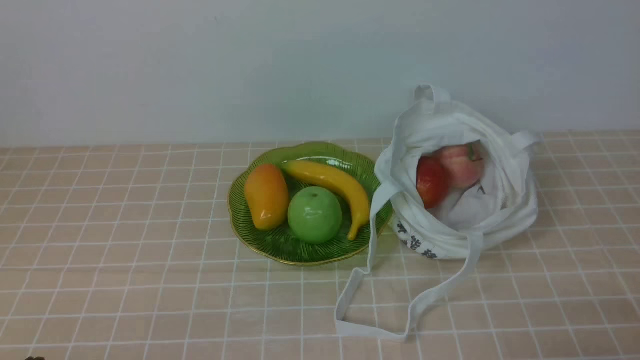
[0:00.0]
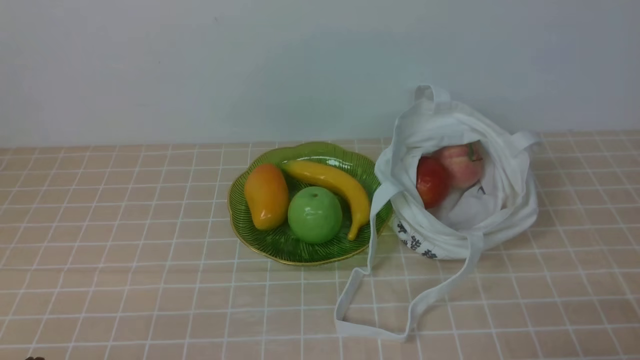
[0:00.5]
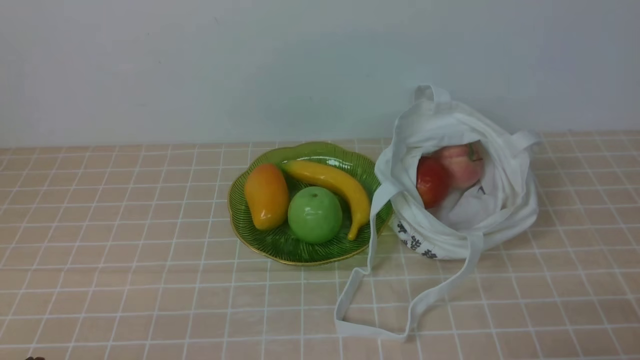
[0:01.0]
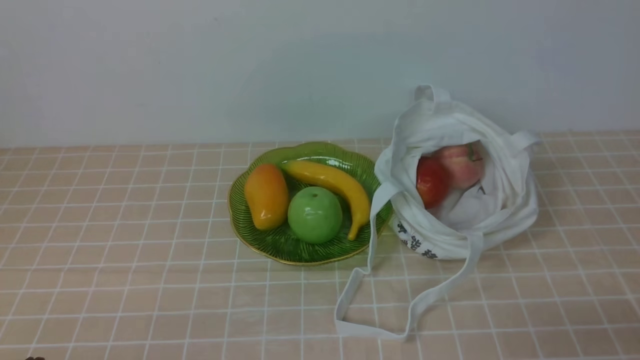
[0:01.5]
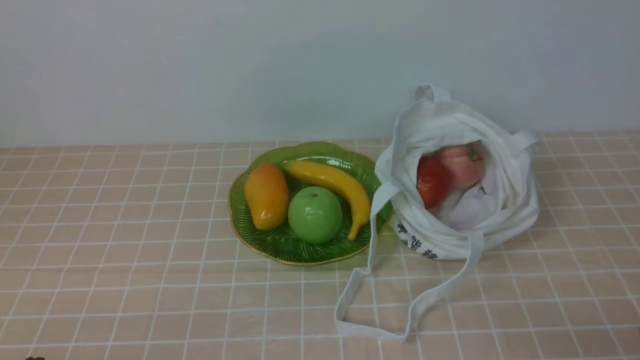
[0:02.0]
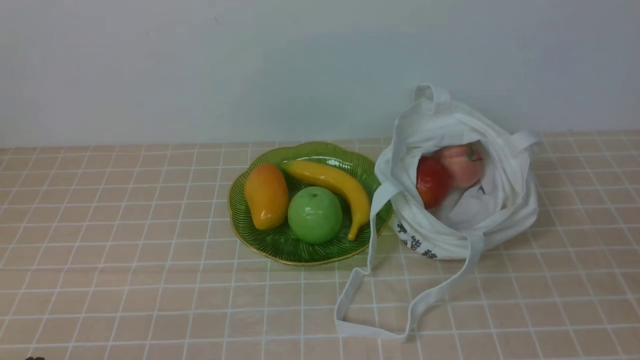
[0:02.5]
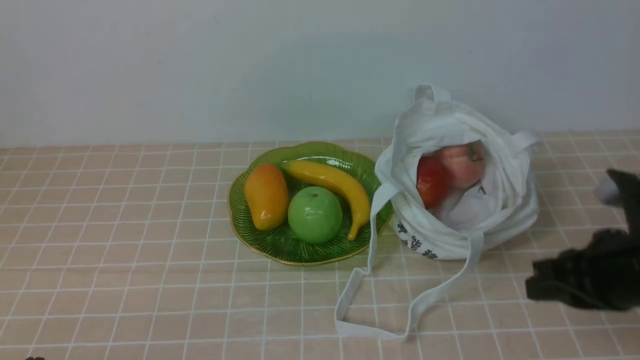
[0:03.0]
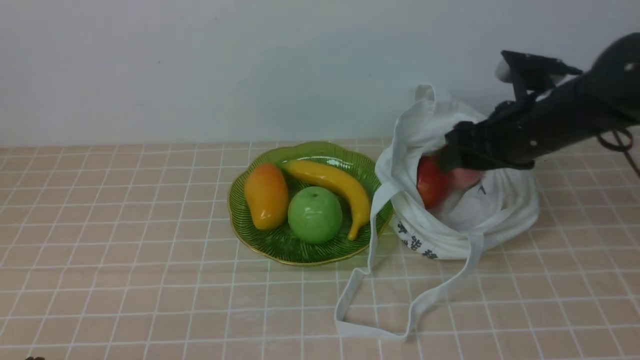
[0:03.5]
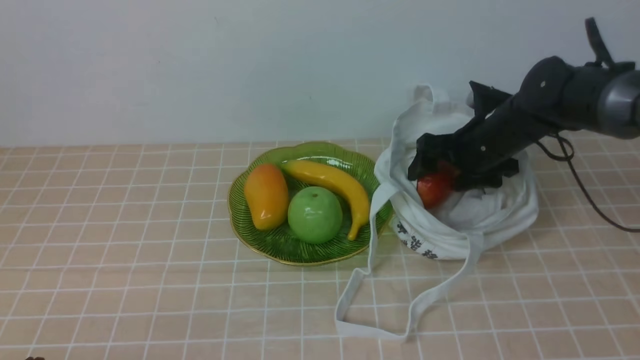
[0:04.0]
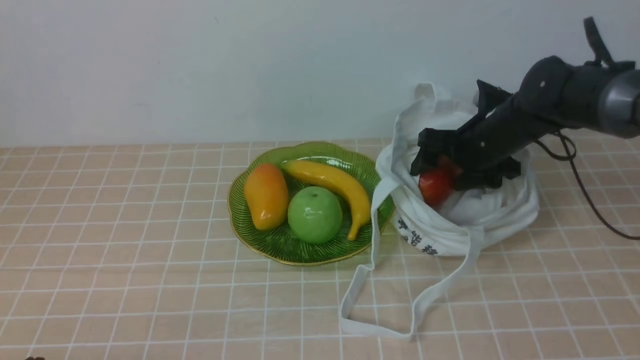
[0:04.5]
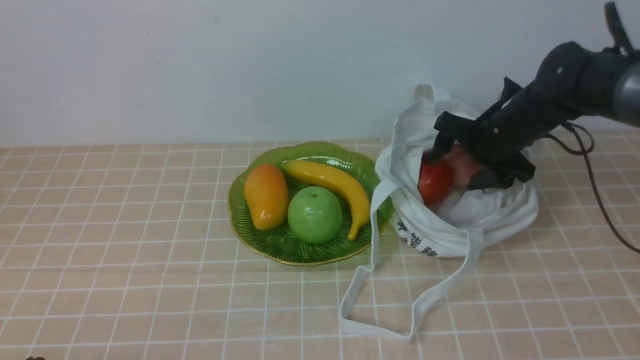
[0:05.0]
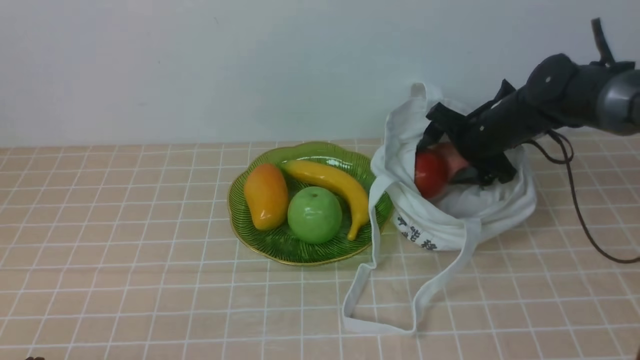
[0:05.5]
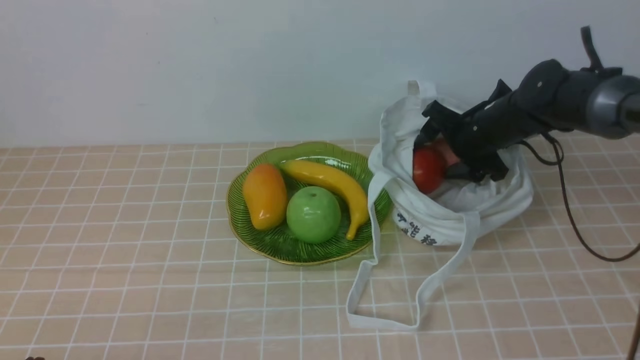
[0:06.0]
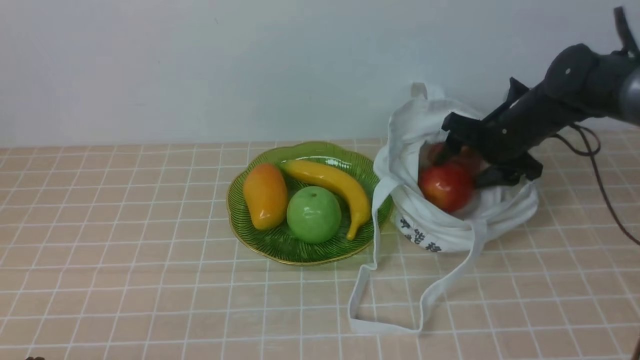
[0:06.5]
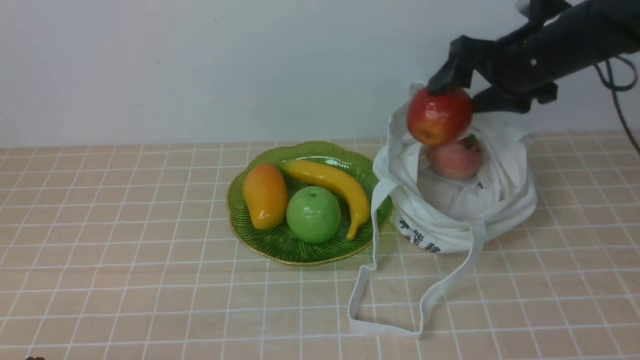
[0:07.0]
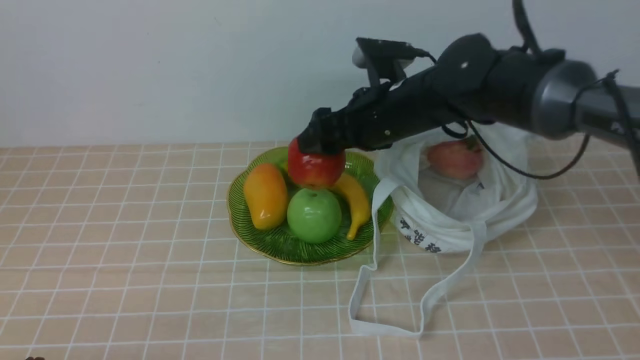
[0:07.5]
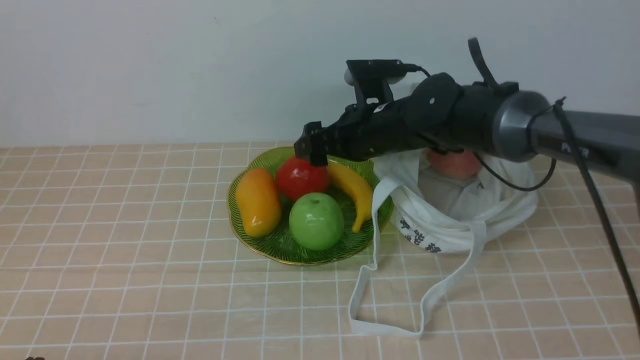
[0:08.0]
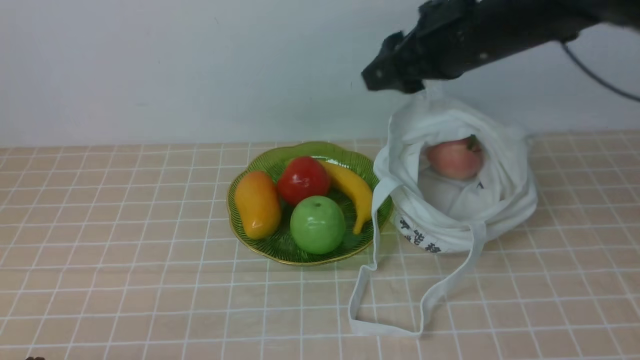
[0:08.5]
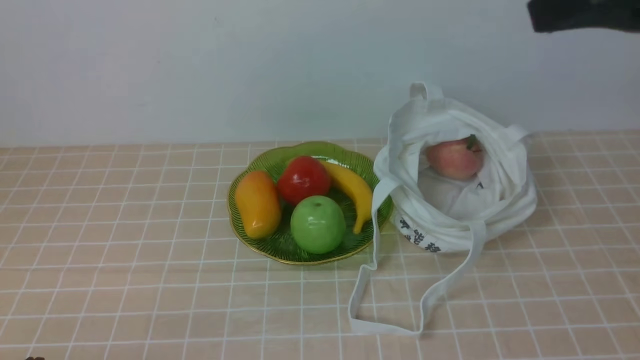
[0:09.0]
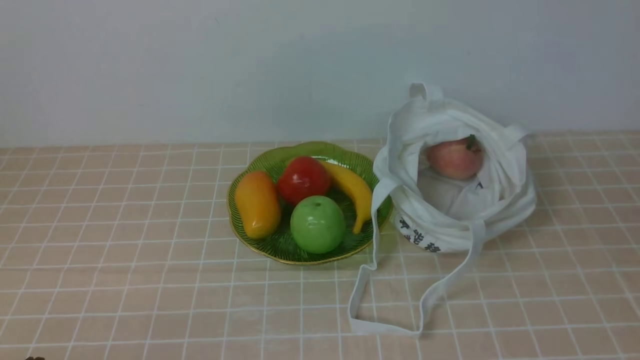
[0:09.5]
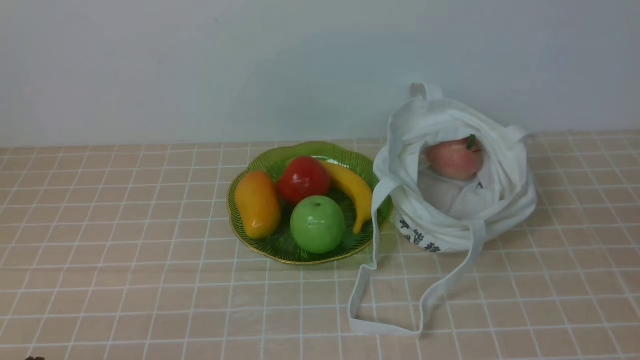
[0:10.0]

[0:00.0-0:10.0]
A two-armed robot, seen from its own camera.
Step, 0:00.0 to 0:06.5: use the right arm to grab an apple from the bag.
Step, 0:07.0 to 0:08.0: use the right arm to put the apple into the empty plate on the left.
0:02.0 to 0:04.0: The right gripper travels forward by roughly 40 cm, and opens.
0:06.0 to 0:08.0: The right gripper travels to the left and upward by some 15 cm.
0:08.0 to 0:10.0: The right gripper goes roughly 40 cm backward and to the right, and closes its fingers.

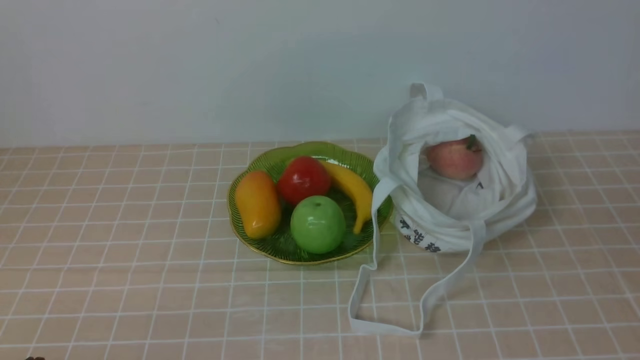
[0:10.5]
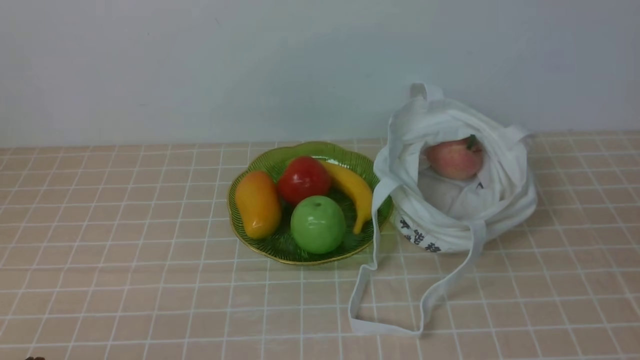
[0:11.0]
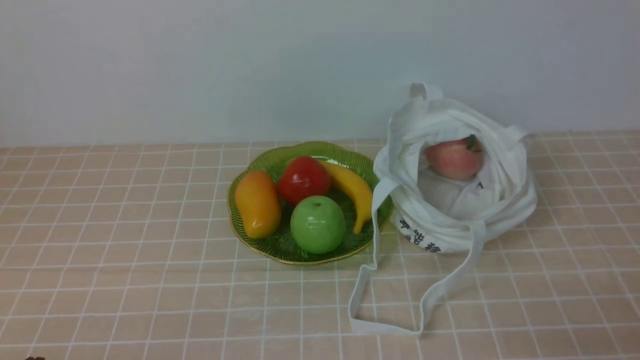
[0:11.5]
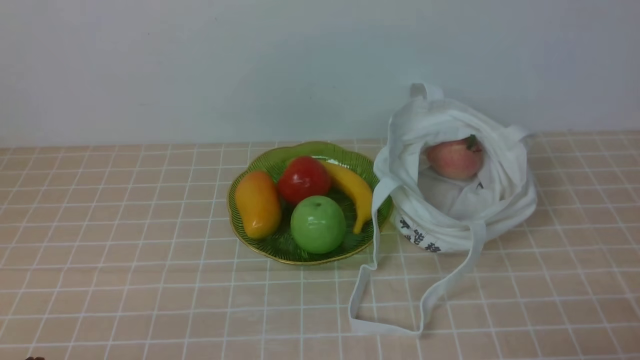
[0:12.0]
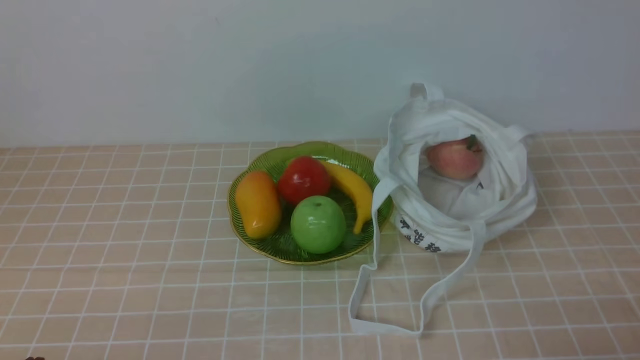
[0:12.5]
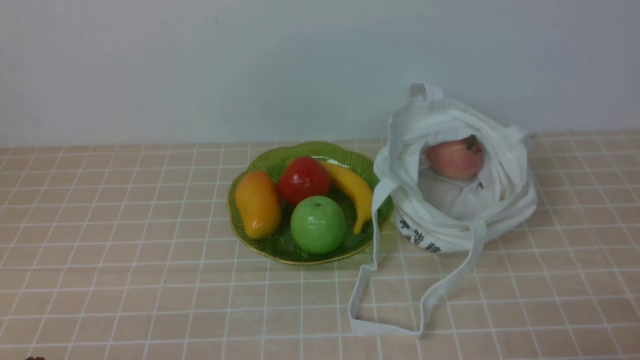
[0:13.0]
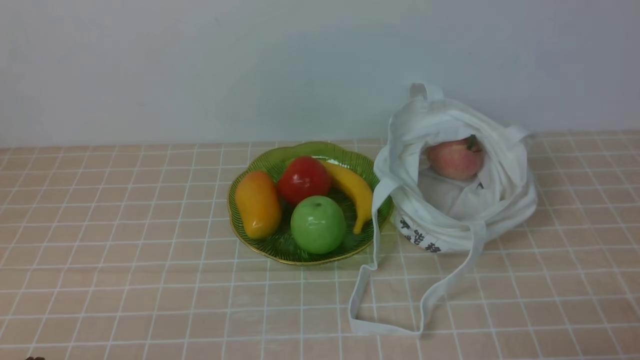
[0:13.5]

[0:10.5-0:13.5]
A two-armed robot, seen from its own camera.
0:12.0 to 0:13.5: Both grippers stay about where they are.

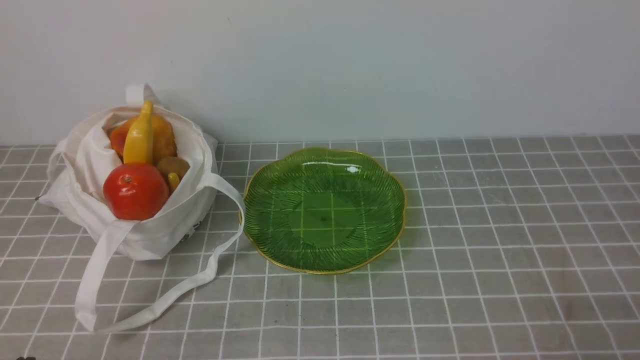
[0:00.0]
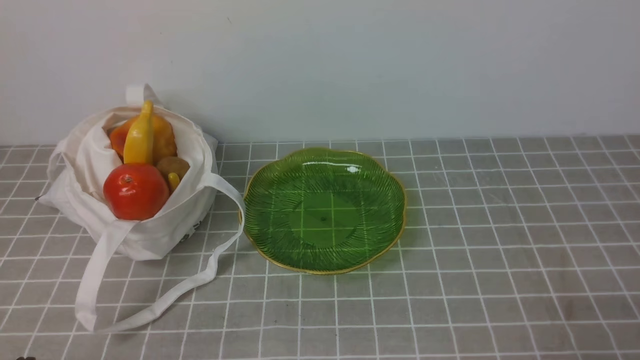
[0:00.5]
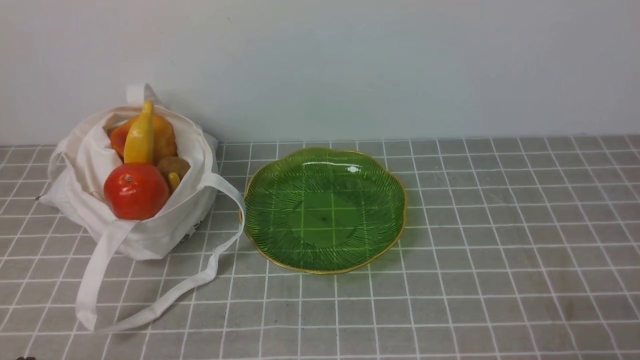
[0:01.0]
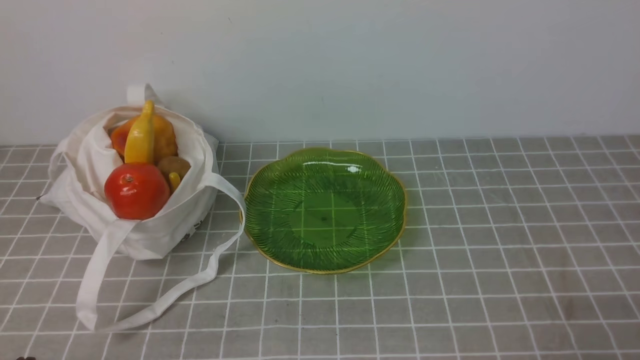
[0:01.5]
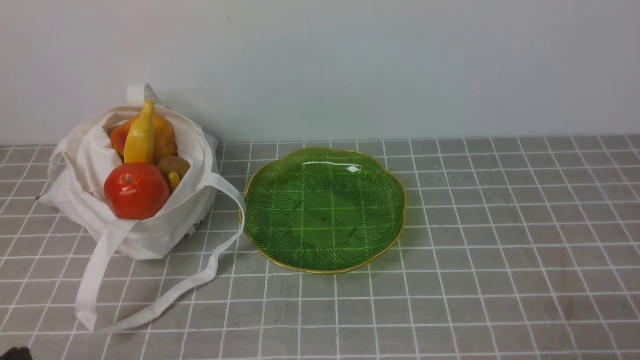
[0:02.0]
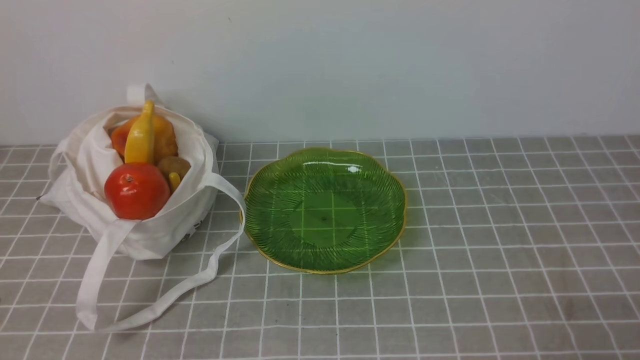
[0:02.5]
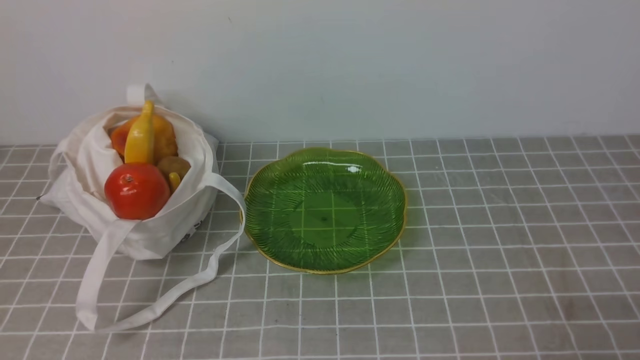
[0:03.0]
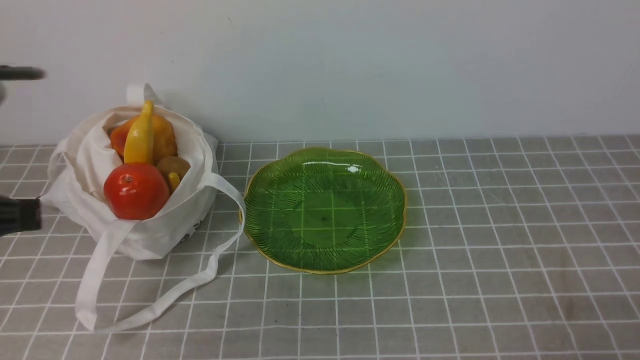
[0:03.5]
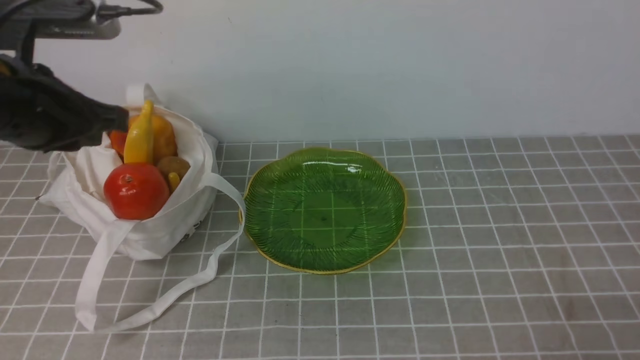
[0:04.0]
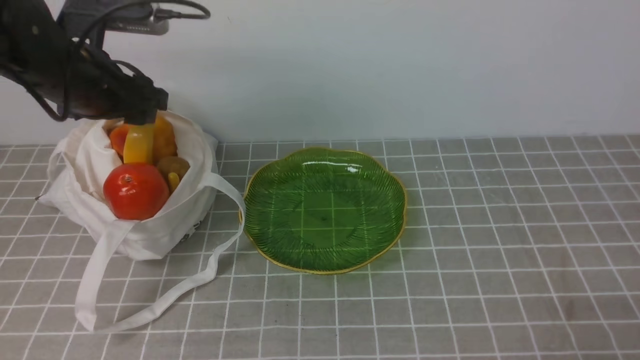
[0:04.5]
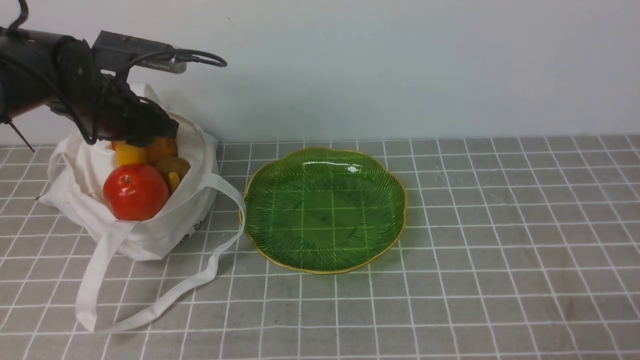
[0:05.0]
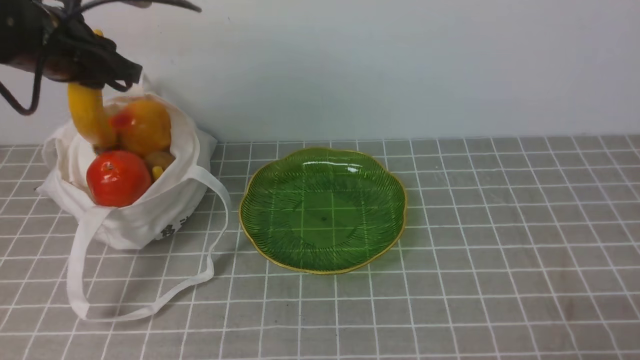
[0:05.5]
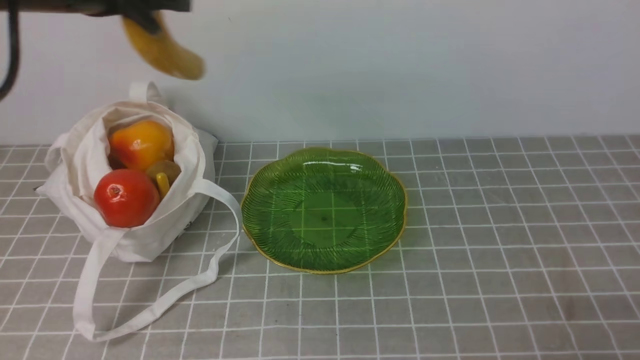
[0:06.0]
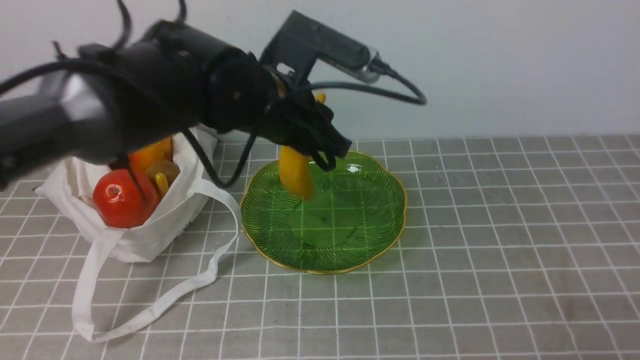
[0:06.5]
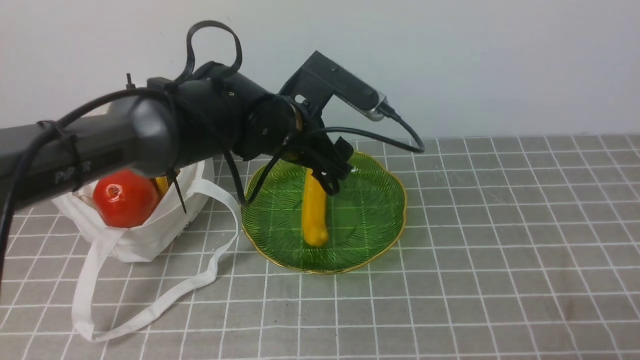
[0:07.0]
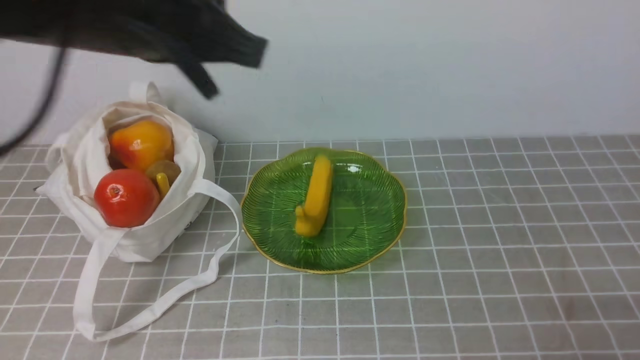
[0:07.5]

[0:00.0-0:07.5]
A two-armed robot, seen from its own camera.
Step, 0:00.0 to 0:05.0: use the left arm to grab a banana from the bag.
Step, 0:05.5 to 0:07.0: use the left arm to put the banana into the empty plate on the right.
0:02.0 to 0:04.0: The left gripper moves forward and upward, roughly 30 cm.
0:04.0 to 0:05.5: The left gripper goes about 10 cm forward, and opens its fingers.
0:05.5 to 0:07.5: The left gripper heads backward, to the right and upward, covering approximately 20 cm, and opens, then closes once more.
